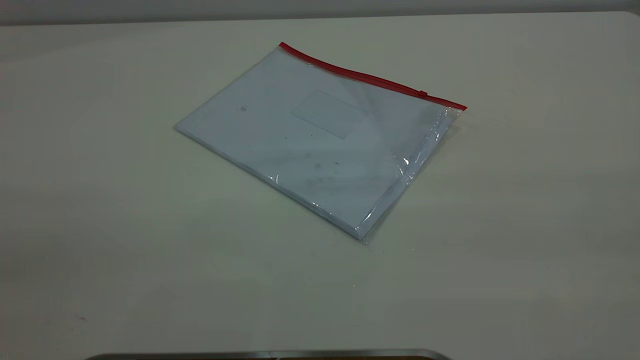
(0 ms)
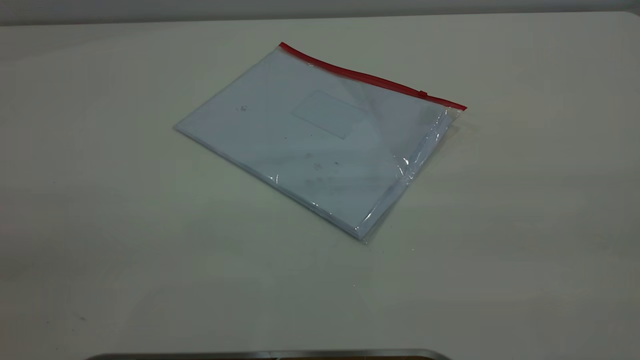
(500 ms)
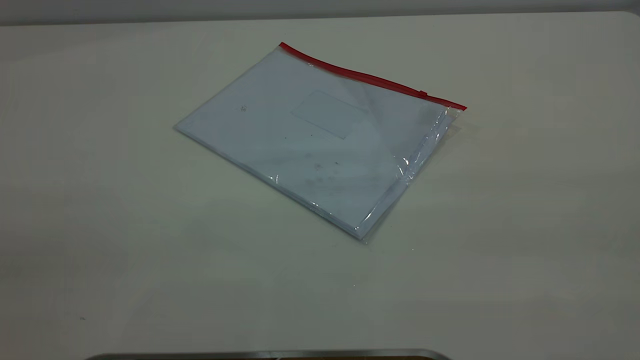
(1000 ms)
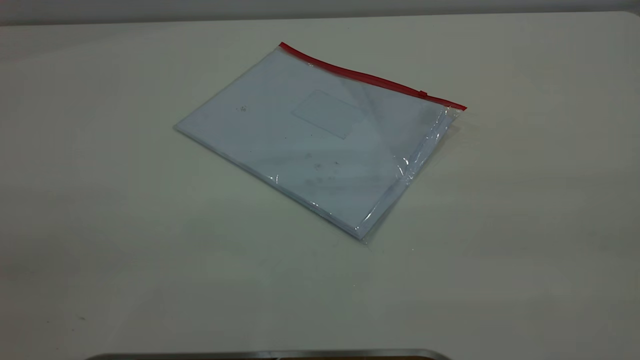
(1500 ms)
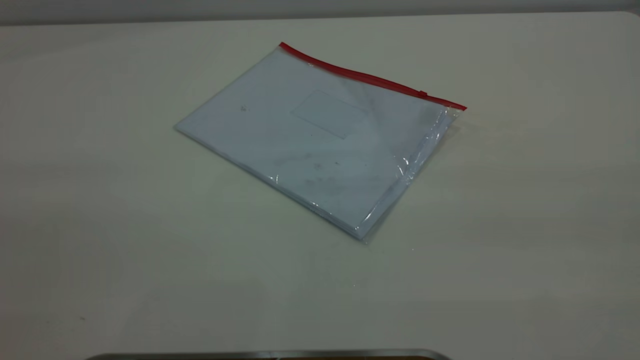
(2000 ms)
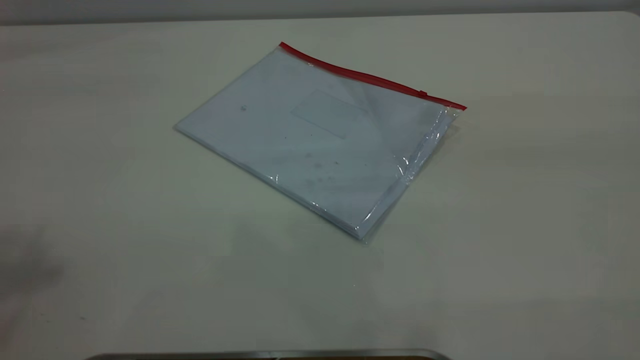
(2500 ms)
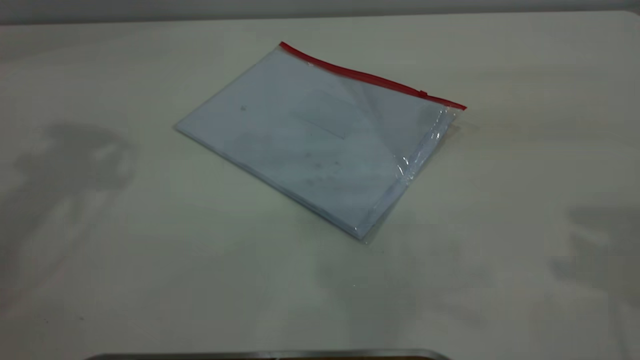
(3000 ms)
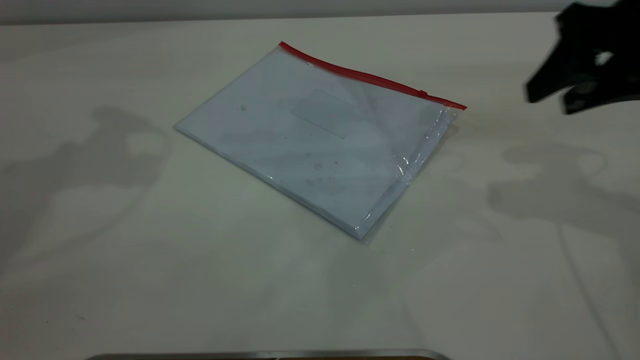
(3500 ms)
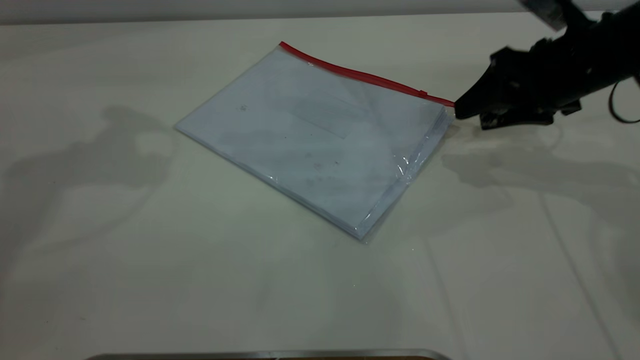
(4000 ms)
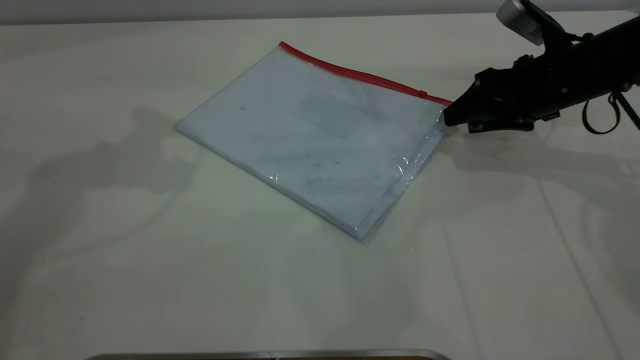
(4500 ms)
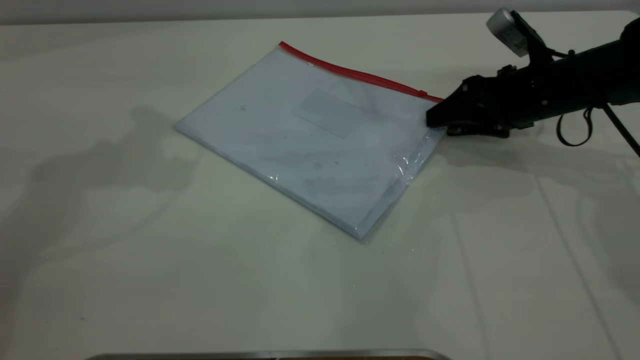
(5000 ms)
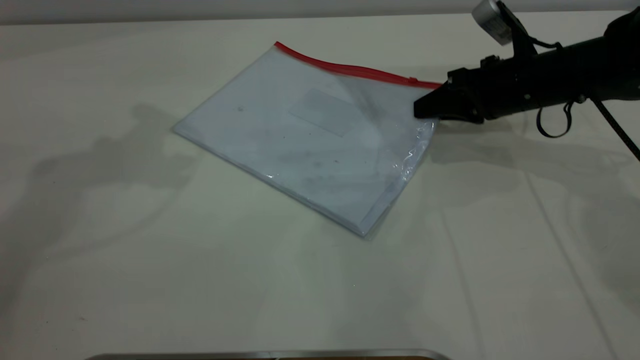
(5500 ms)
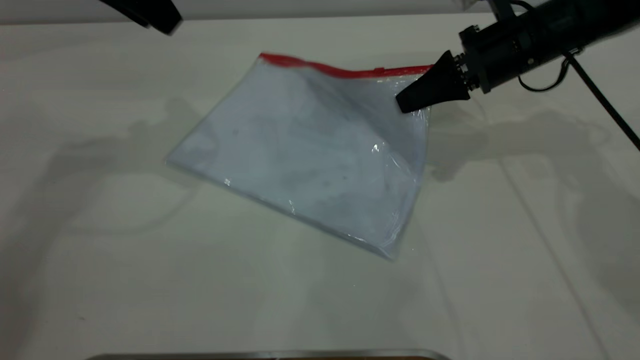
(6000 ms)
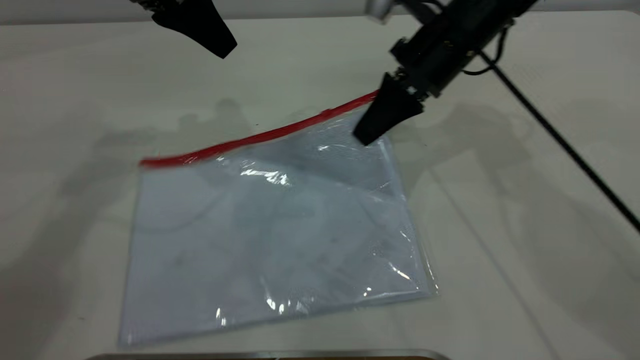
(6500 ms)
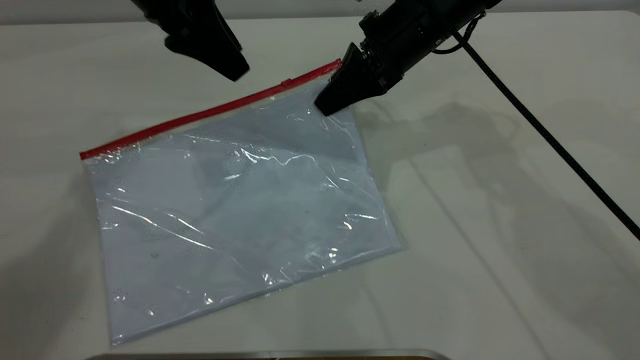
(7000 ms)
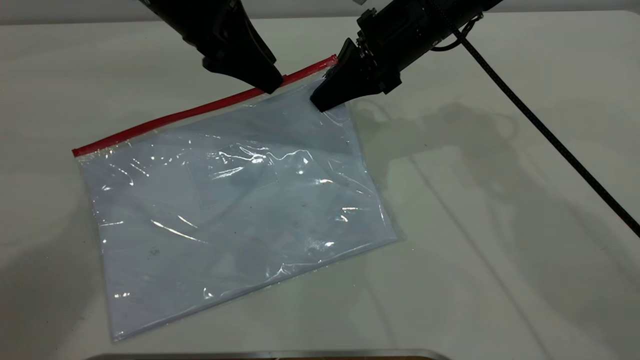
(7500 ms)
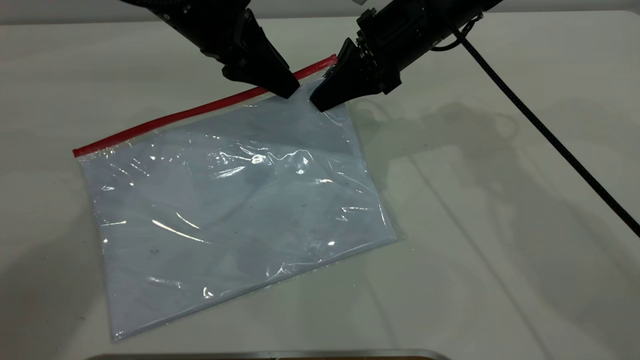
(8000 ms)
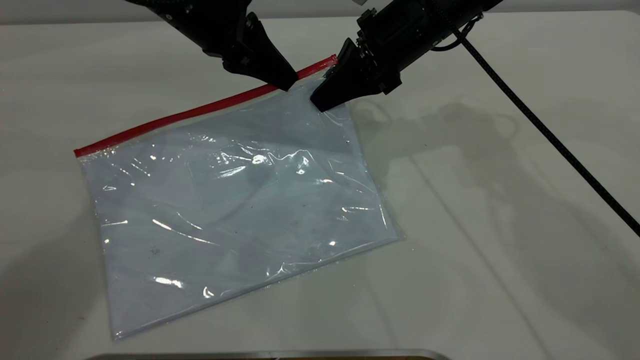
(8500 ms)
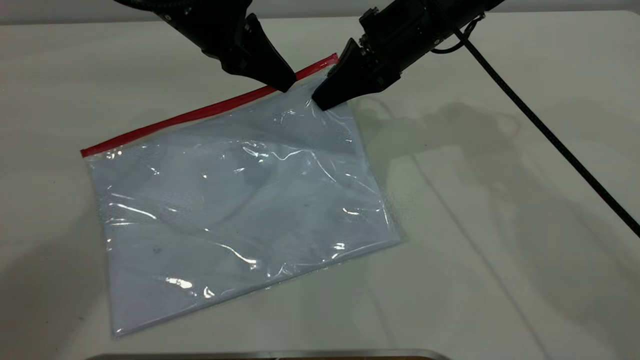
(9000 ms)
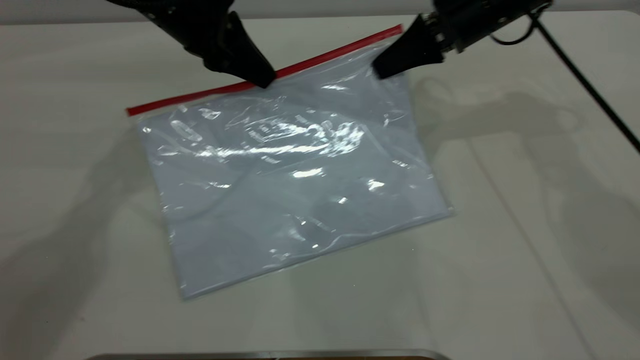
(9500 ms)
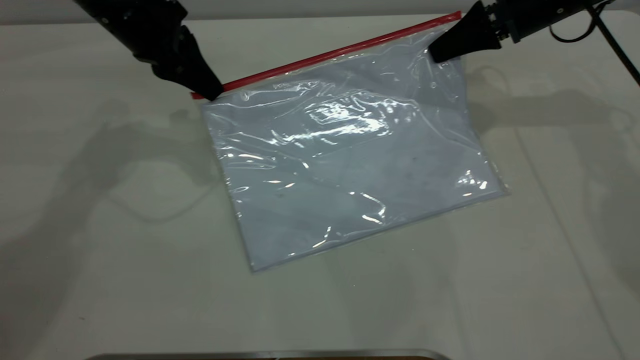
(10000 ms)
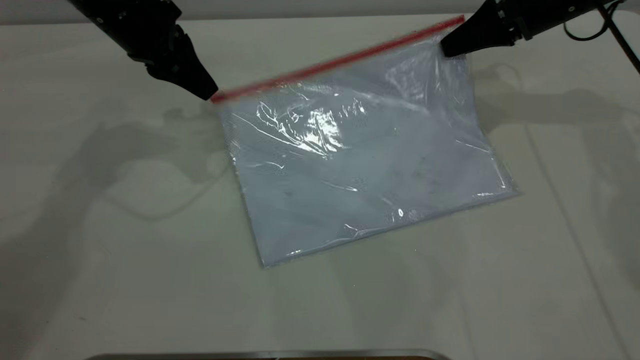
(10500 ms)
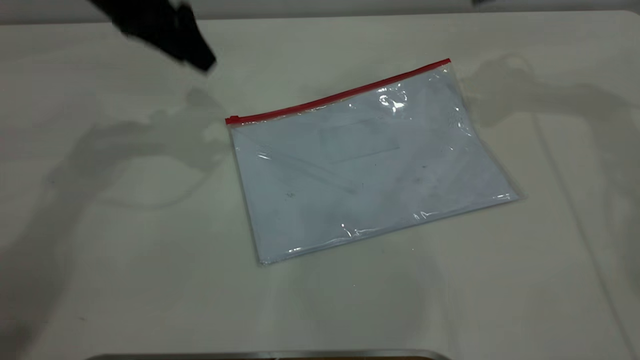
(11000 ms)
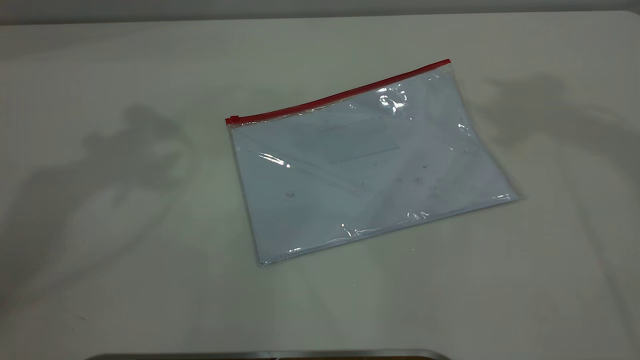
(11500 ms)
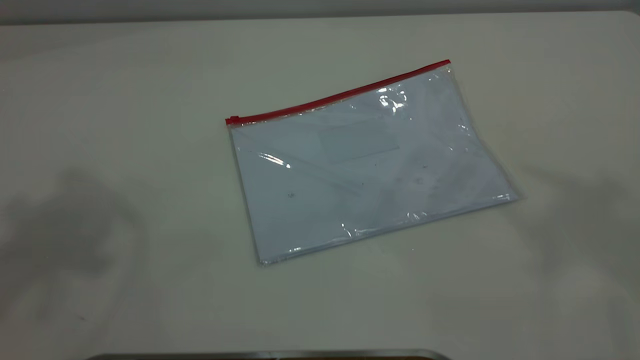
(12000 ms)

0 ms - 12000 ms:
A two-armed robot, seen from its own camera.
Step, 0 ms - 6500 ms: Pick up the transparent plastic bag with the right gripper.
Step, 7000 ms - 10000 ms: Pulling up the zipper on the transparent plastic bag with the left gripper to close it.
Step, 10500 ms - 11000 ms: Place the transparent plastic bag.
2000 ms - 4000 ms: The right gripper shifts roughly 50 cm forward and downward.
4000 ms - 6000 ms: The left gripper goes some 5 cm downward; the right gripper heads forward and to the left, covering roughly 10 cm, and closes its fingers.
6000 ms - 8000 ms: The left gripper heads to the right and downward, covering approximately 10 cm, while the right gripper travels to the left by about 10 cm.
8000 ms - 10000 ms: The right gripper travels to the right by about 15 cm. Meanwhile the left gripper is displaced to the left by roughly 5 cm, and closes up.
10000 ms - 12000 ms: Both grippers move upward and backward, roughly 50 cm. The left gripper opens. Meanwhile the right gripper opens its fingers.

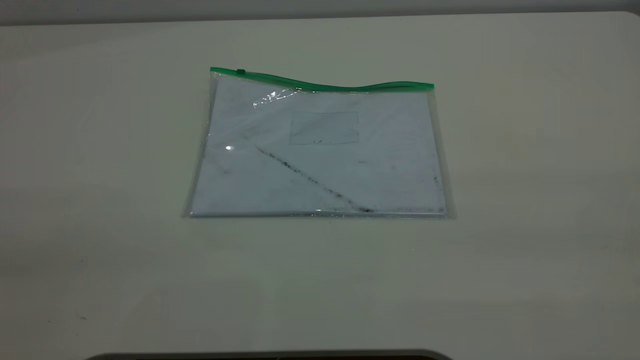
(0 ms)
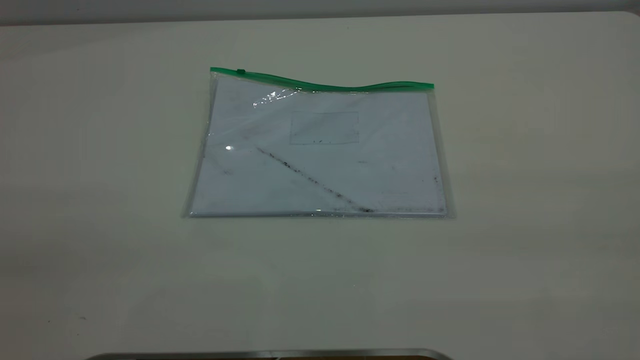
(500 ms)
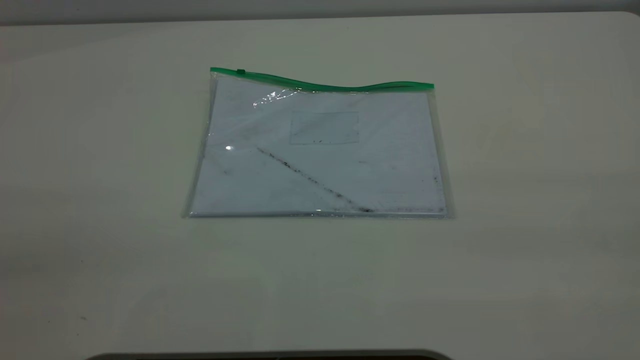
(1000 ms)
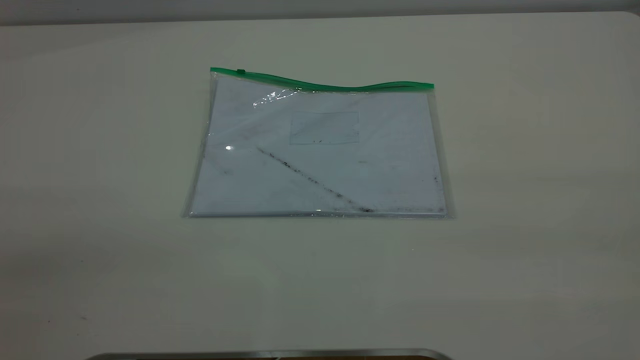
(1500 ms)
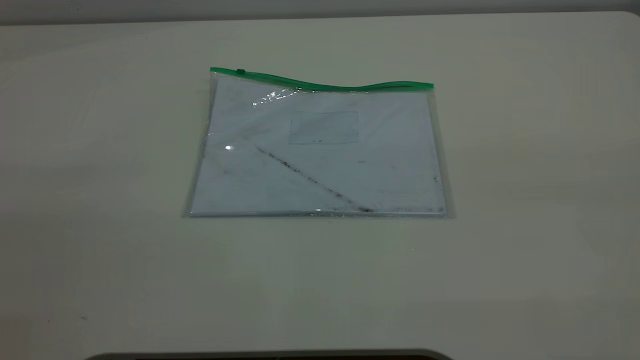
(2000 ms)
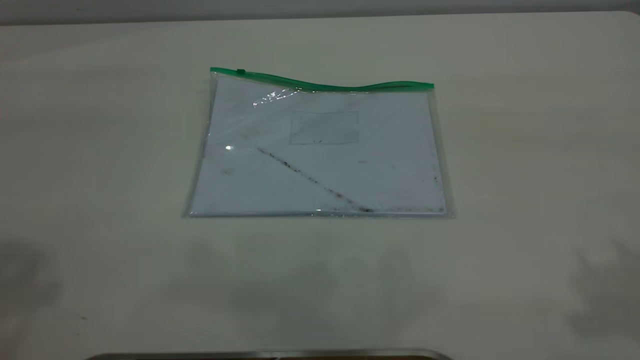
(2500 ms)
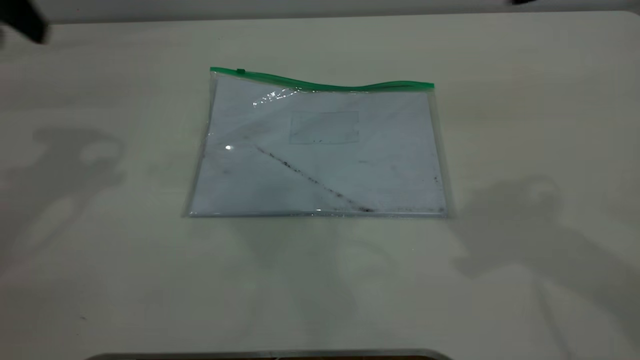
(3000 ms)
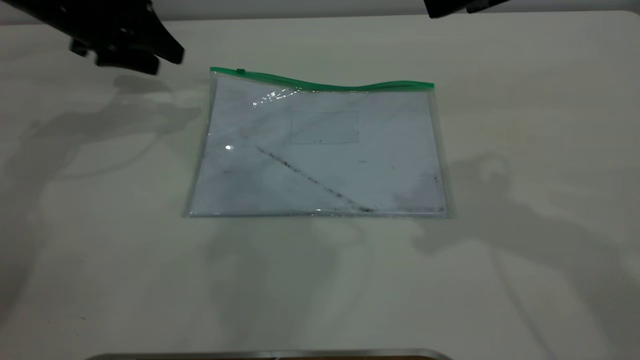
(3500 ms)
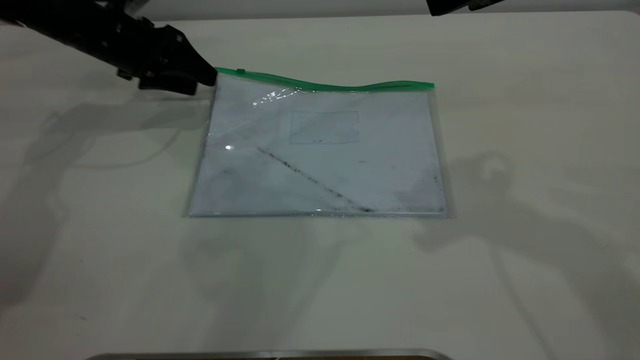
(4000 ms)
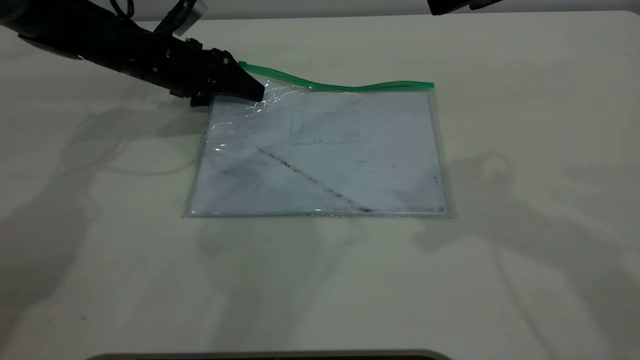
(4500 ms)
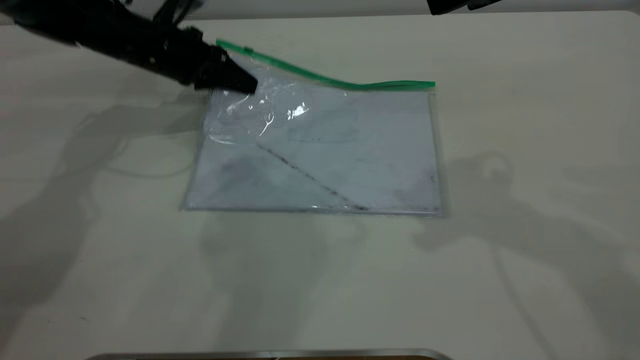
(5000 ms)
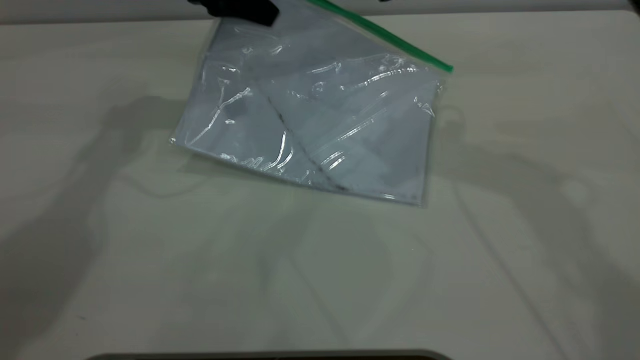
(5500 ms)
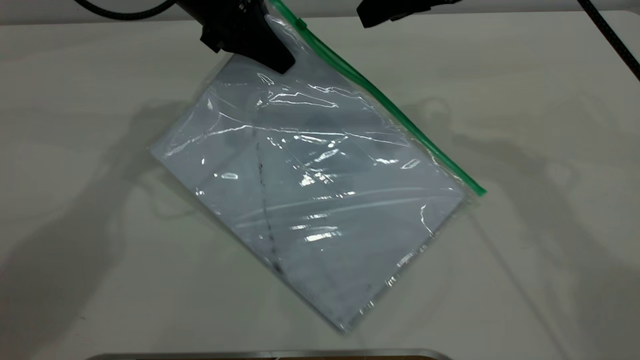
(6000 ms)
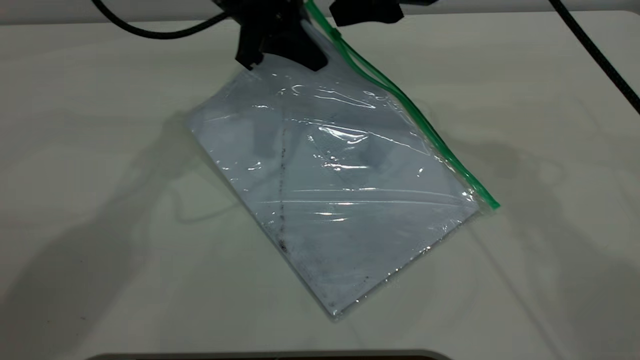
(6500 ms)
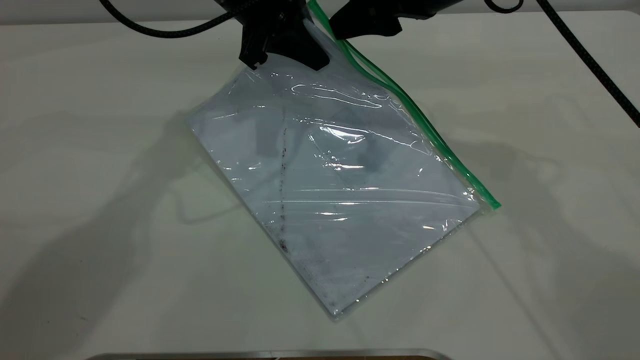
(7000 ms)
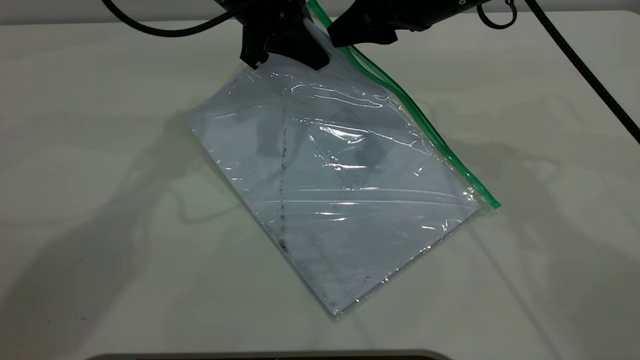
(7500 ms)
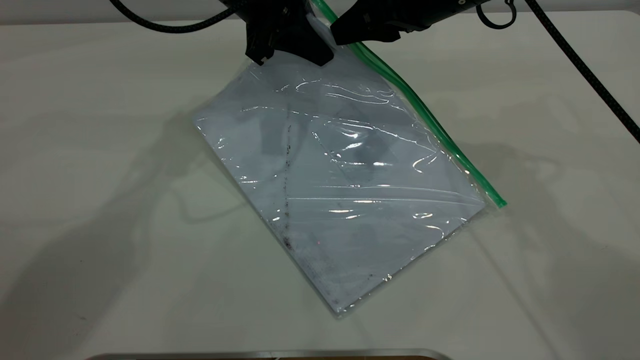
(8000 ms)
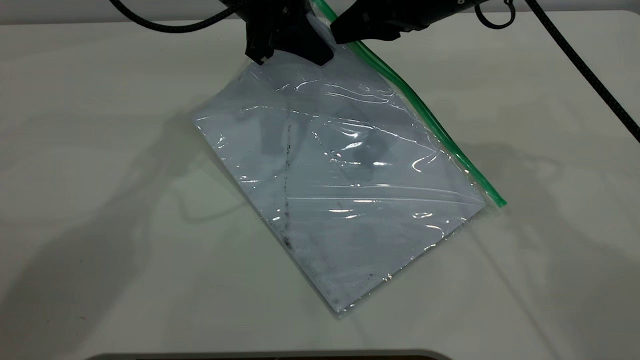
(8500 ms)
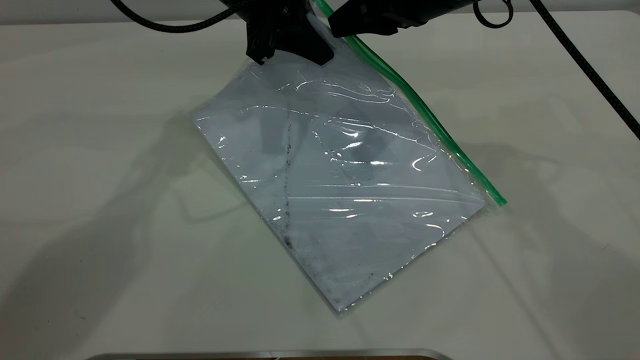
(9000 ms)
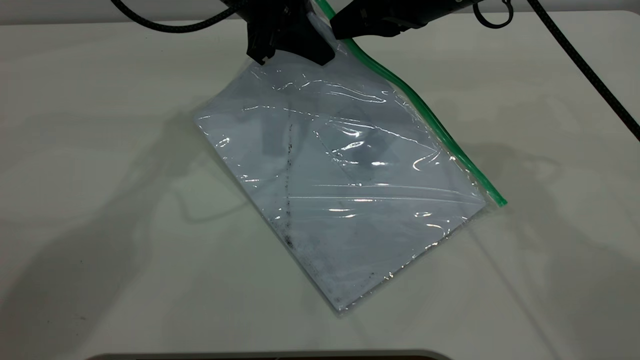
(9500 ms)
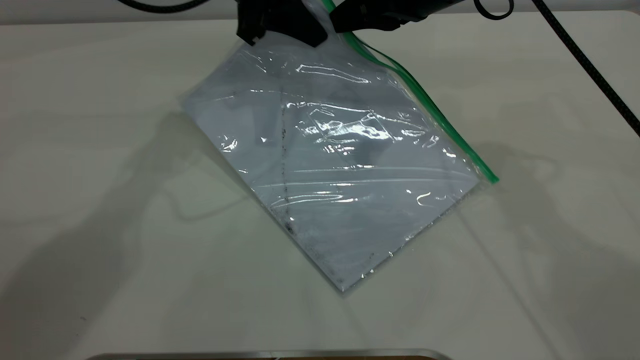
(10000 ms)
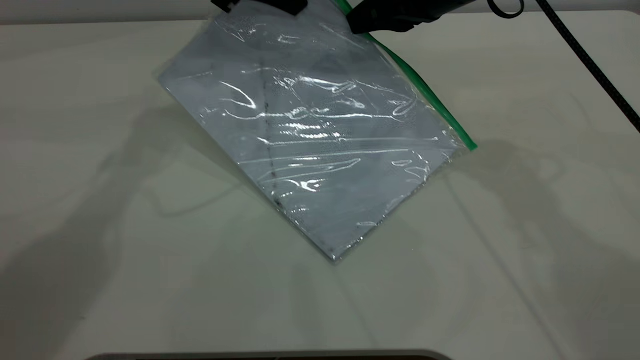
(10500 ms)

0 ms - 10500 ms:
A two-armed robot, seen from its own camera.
Step, 0 ms - 4500 ms: Pick up the transparent plastic bag with the left gripper.
2000 ms - 4000 ms: The left gripper travels forward and downward by about 60 cm. Meanwhile the right gripper shifts about 30 cm forward, downward and to the left, and opens its fingers.
4000 ms - 6500 ms: The left gripper moves to the right and upward, some 20 cm, and closes, while the right gripper goes roughly 15 cm forward, downward and to the left.
6500 ms - 8500 ms: The right gripper closes.
8500 ms - 10500 ms: The left gripper travels upward by about 5 cm.
